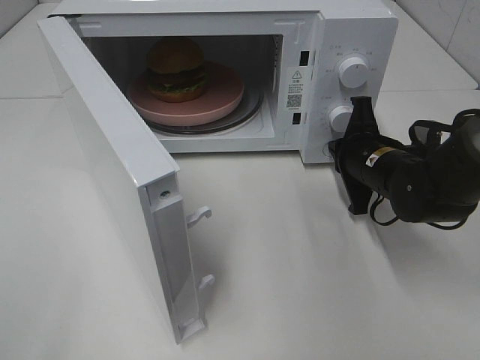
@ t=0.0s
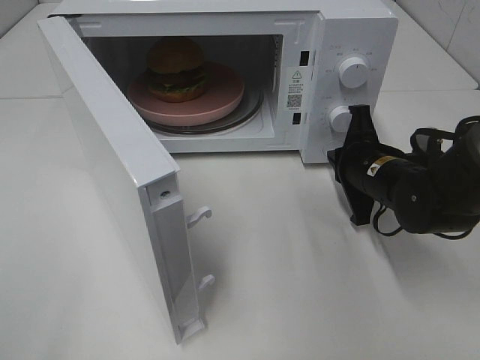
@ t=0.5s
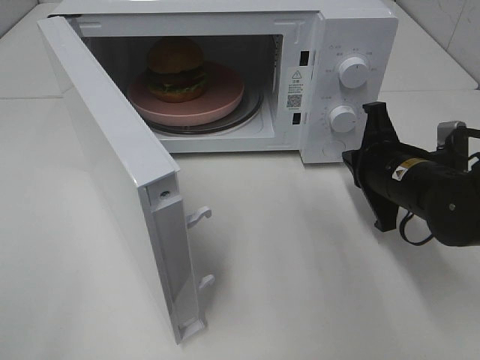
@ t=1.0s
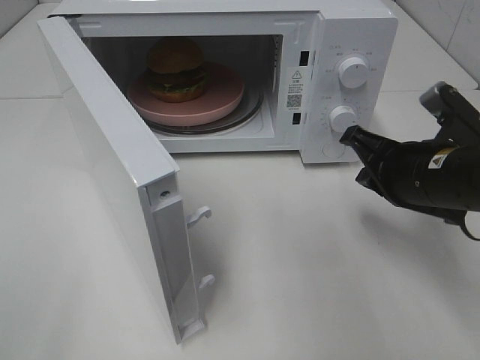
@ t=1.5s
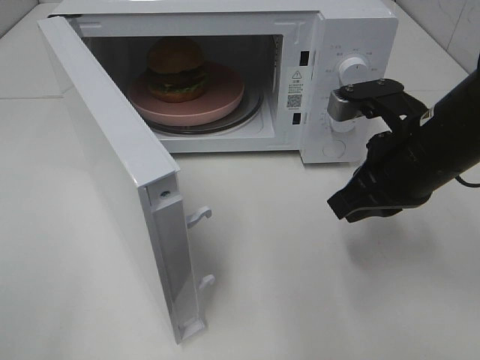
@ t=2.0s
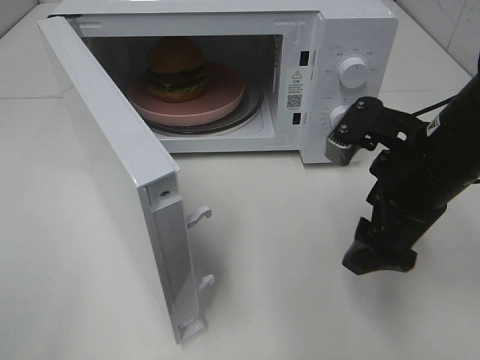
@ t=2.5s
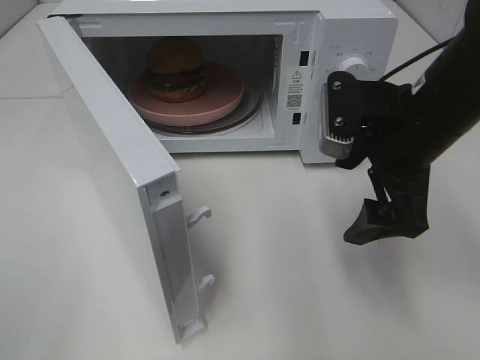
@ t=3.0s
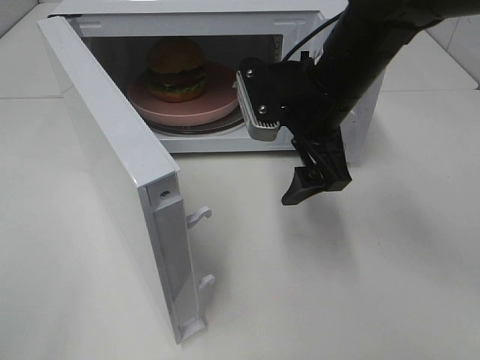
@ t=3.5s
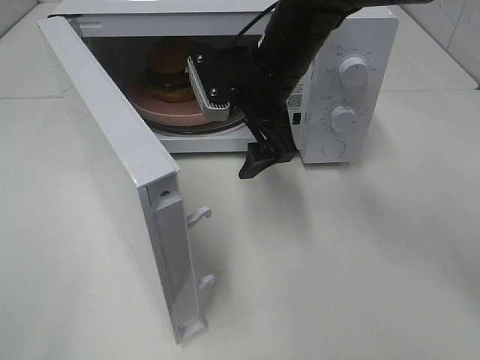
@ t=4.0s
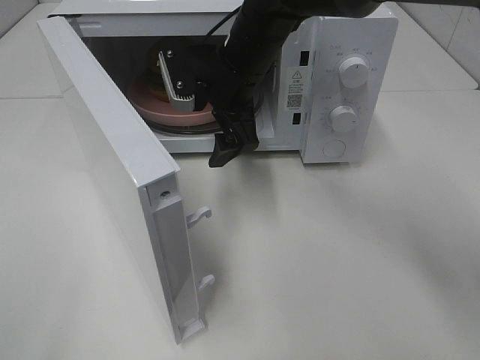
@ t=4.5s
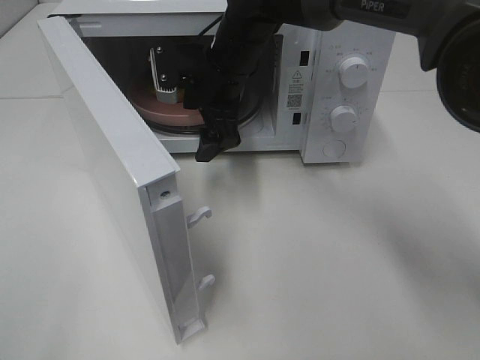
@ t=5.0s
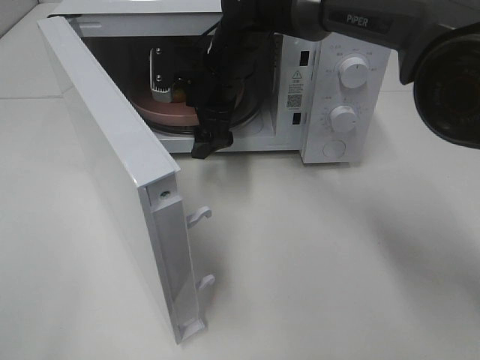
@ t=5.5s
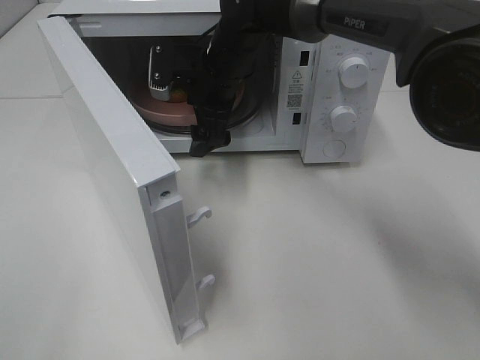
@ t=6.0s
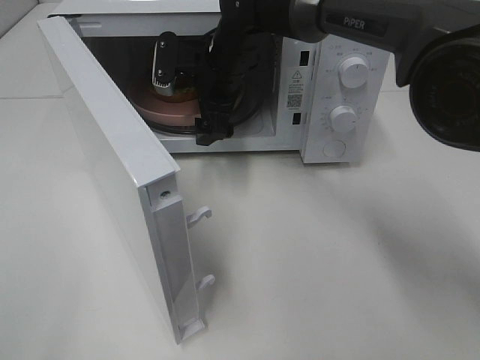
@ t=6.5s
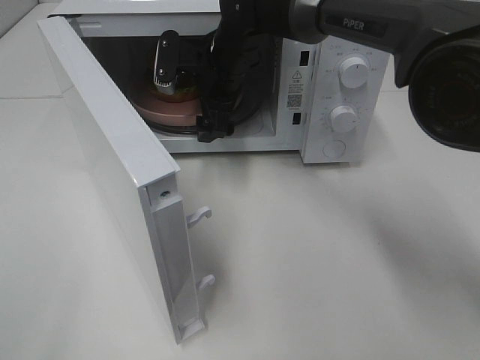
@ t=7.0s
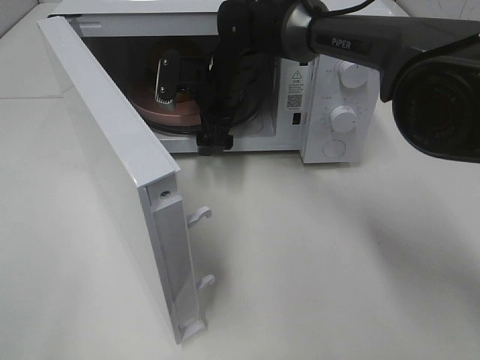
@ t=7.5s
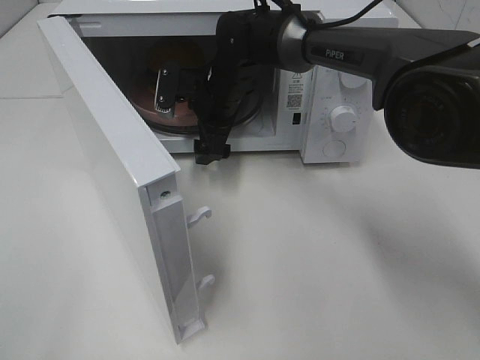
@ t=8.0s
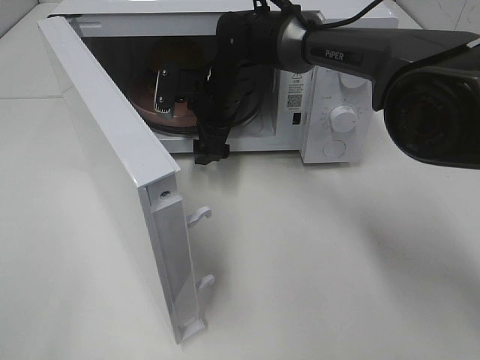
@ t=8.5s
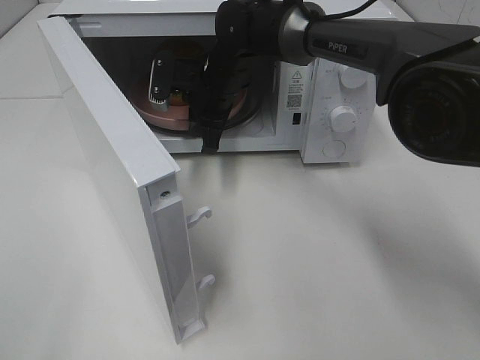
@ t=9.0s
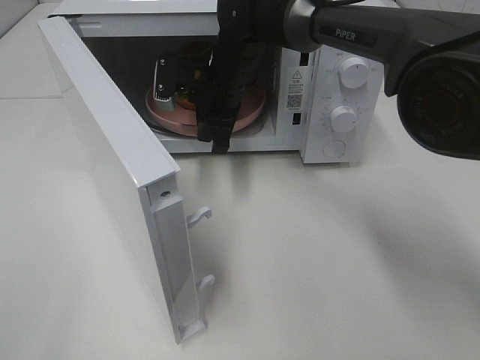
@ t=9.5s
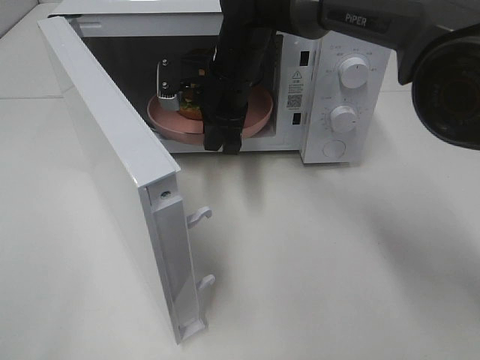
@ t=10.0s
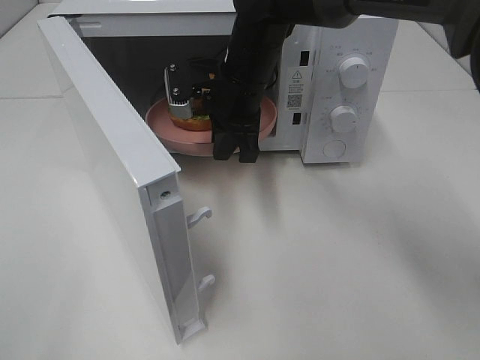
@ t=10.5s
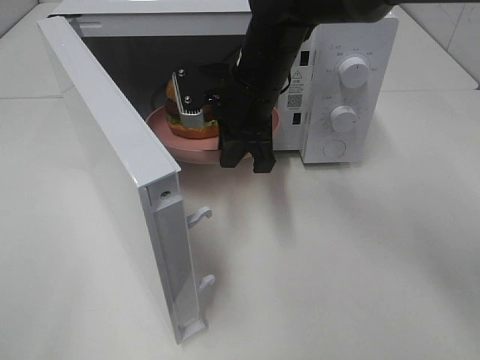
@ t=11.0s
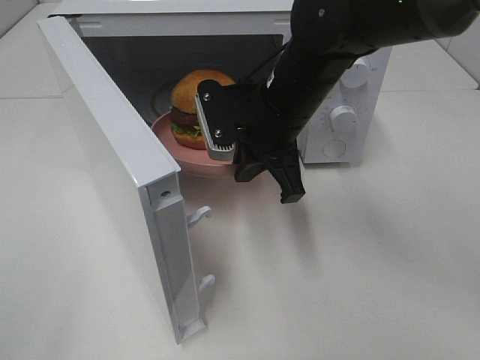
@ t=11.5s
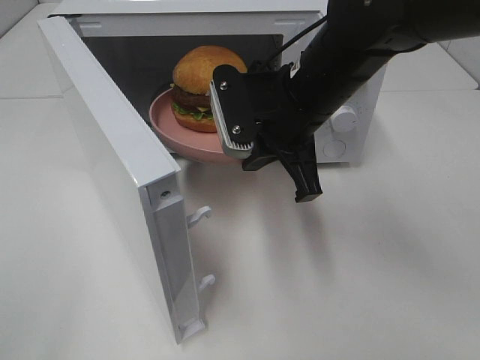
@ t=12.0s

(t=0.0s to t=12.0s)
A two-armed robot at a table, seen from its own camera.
Task of the whole recording: Heat the burger.
Step, t=0.5s - t=9.0s: Right hand: grab the plate with the hamburger.
t=0.0s - t=2.0s: The right gripper travels upward and backward by some 15 cm.
t=2.0s - t=4.0s: The right gripper travels to the left and forward by roughly 20 cm, and opens.
t=4.0s - t=6.0s: The right gripper heads forward and to the left, covering roughly 10 cm.
t=6.0s - t=8.0s: The grippers stay close to where they were, moving slightly.
t=8.0s - t=10.0s: The right gripper closes its fingers.
t=10.0s - t=12.0s: The right gripper goes approximately 15 cm backward and to the right.

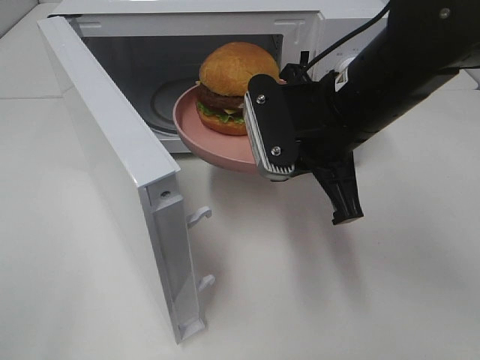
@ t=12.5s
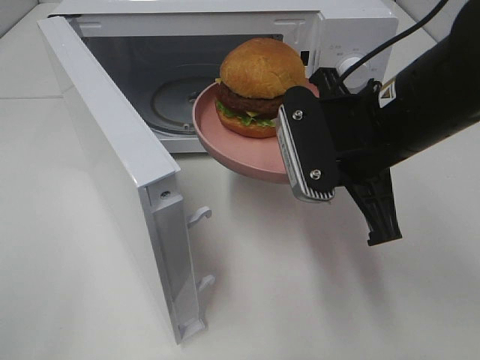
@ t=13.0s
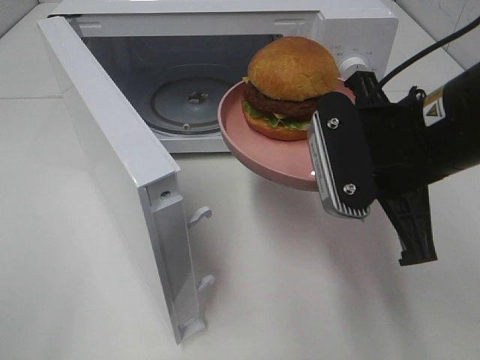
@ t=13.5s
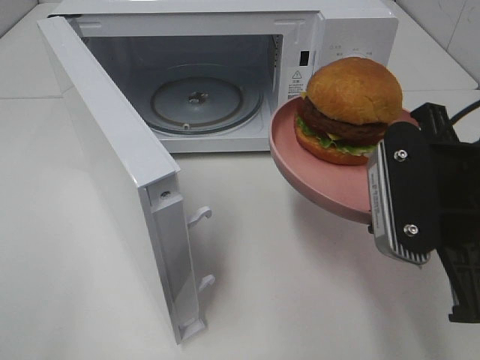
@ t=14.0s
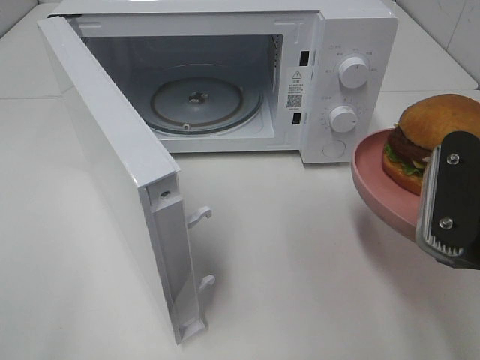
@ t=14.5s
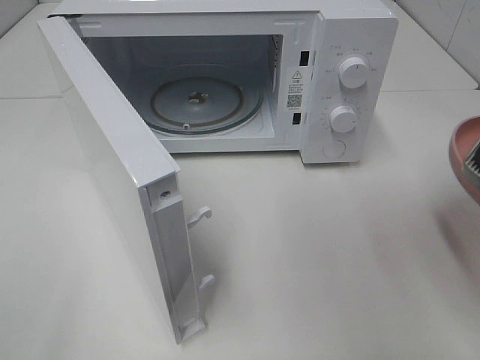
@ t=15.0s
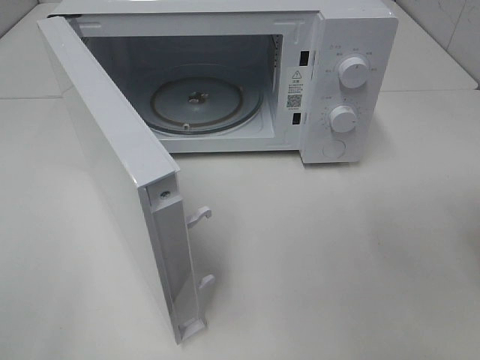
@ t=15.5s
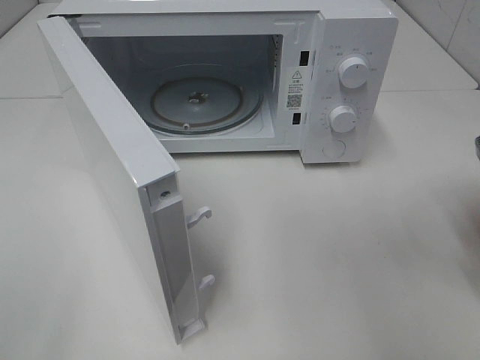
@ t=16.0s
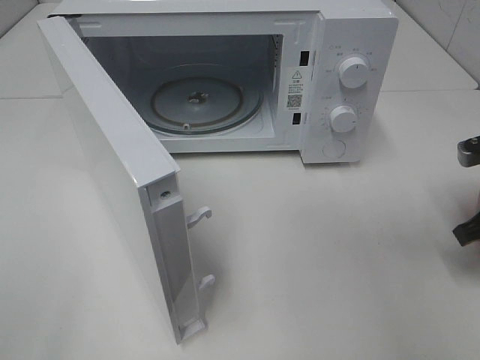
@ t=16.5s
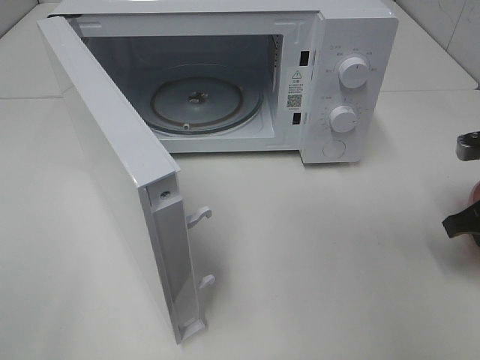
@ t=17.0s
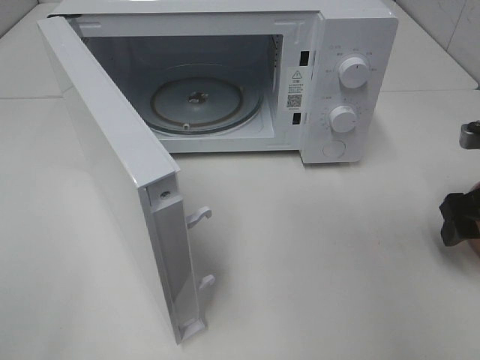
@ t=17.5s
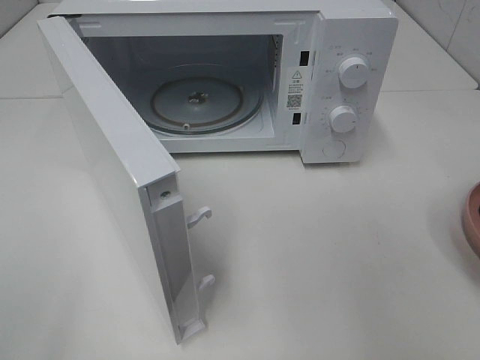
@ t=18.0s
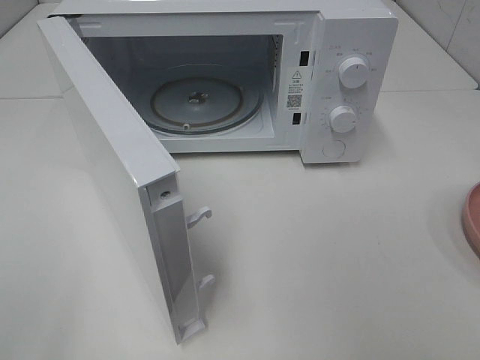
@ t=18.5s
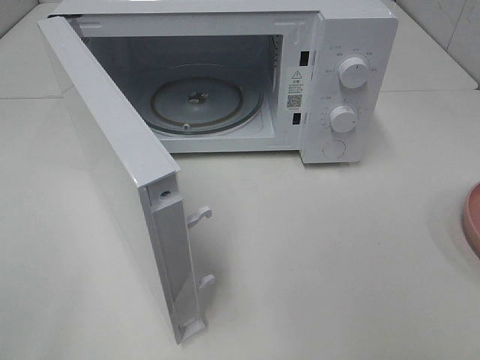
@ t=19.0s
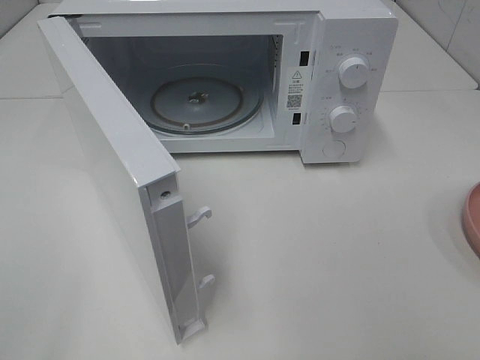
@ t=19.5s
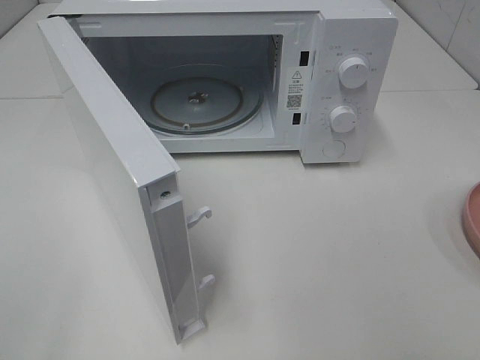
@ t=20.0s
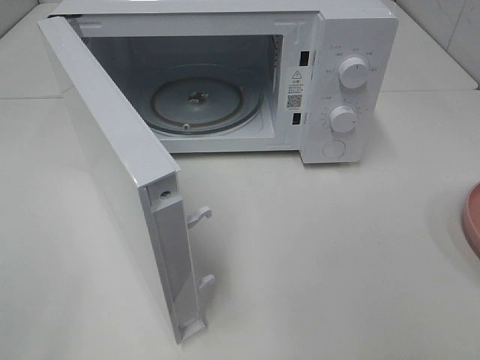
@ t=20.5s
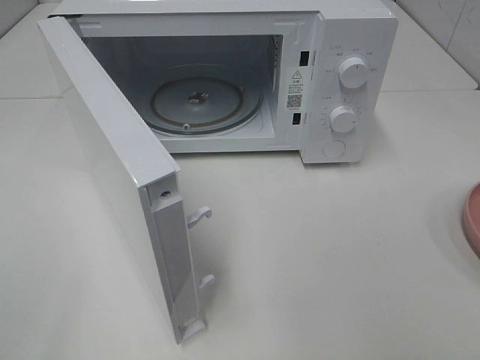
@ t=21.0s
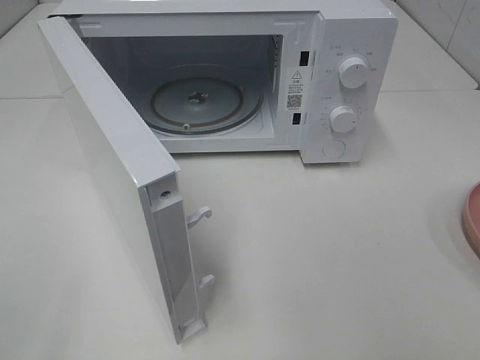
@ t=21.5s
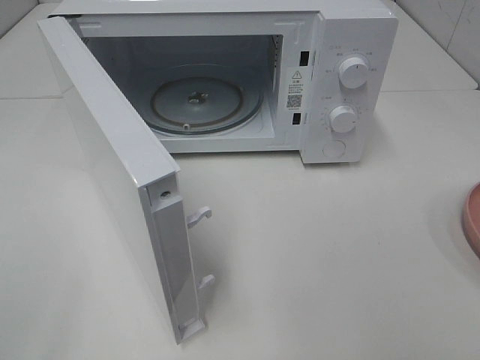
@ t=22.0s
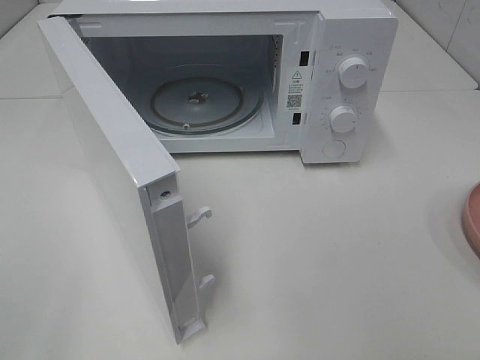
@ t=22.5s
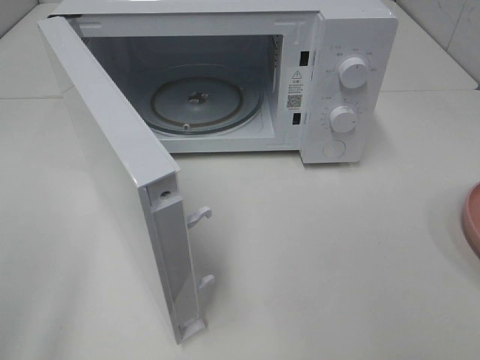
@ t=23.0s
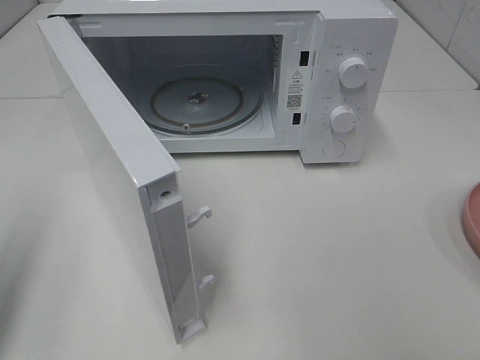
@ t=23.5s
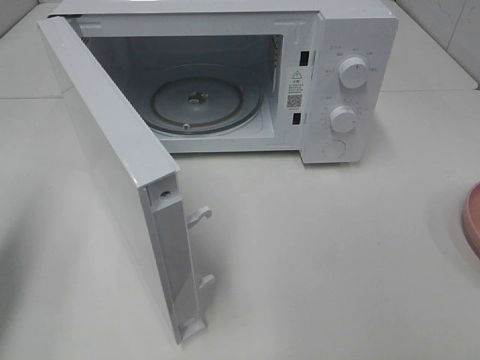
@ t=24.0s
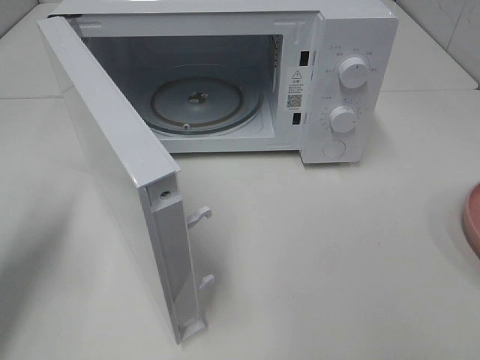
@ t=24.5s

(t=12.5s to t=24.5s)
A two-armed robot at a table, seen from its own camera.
Task of the whole recording: Heat the burger.
Step, t=12.5s - t=17.0s: Right hand: place the plate on the table.
t=12.5s - t=14.5s: The right gripper shifts some 15 cm backward and to the right.
t=14.5s - t=16.5s: The right gripper is displaced forward, to the right and downward by about 20 cm.
t=16.5s - t=18.5s: The right gripper is displaced upward and backward by some 25 cm, and opens up.
t=20.5s - t=22.5s: The two grippers keep their place.
t=22.5s - t=24.5s: The left gripper goes some 20 cm forward, and closes up.

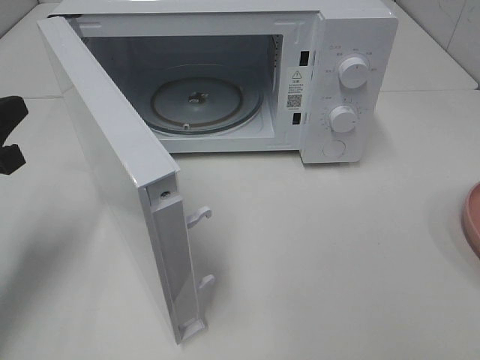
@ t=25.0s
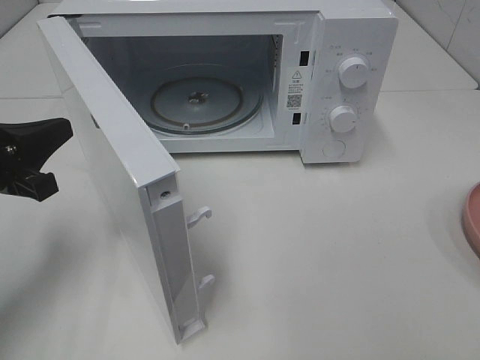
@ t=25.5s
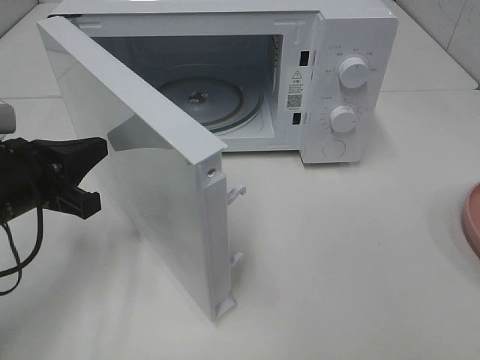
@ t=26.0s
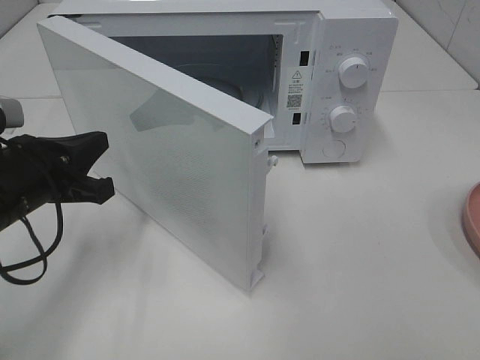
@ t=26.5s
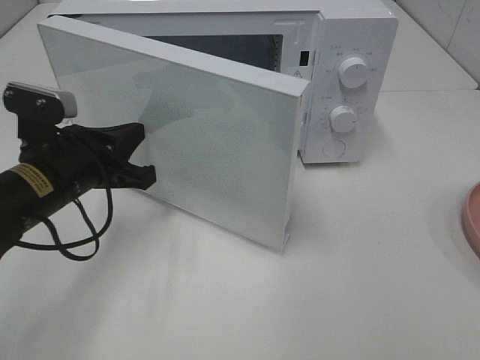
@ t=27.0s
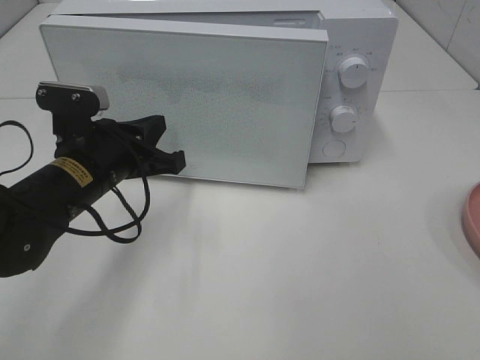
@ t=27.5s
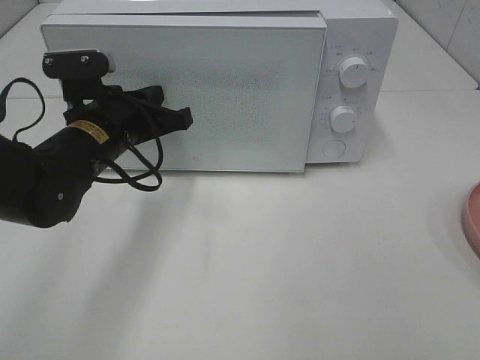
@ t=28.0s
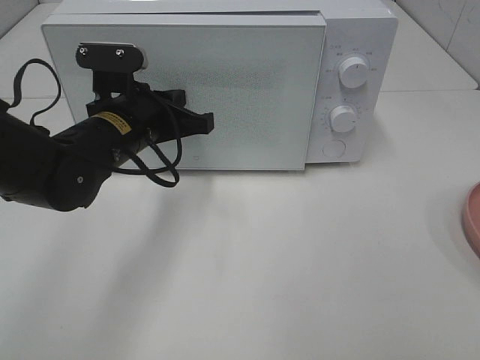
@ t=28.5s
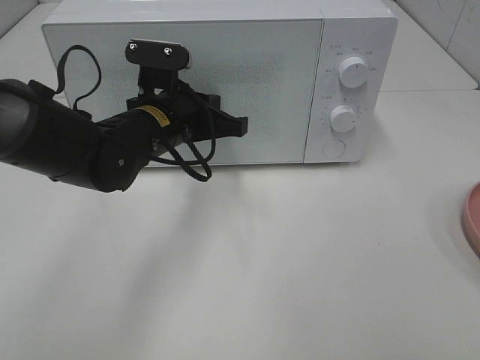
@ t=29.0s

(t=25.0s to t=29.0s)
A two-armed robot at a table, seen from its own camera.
Task of the whole recording: Heat the burger.
t=25.0s - t=27.0s: The left gripper heads to the right, covering about 10 cm.
t=27.0s - t=29.0s: The left gripper moves to the right and forward, approximately 10 cm.
